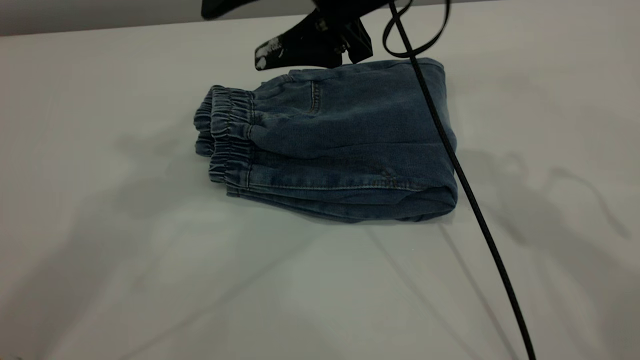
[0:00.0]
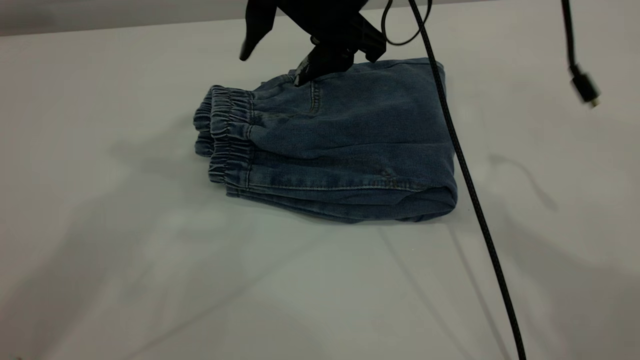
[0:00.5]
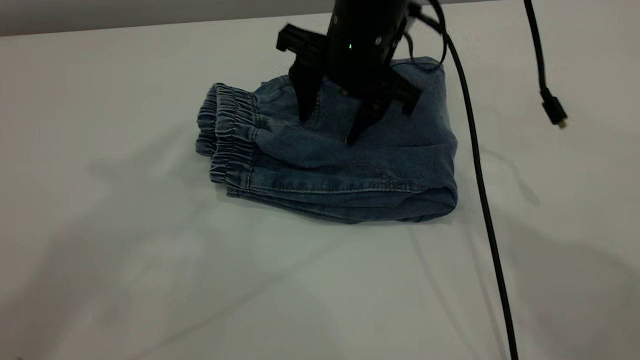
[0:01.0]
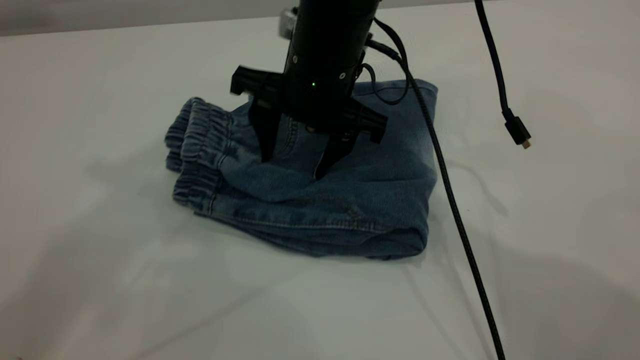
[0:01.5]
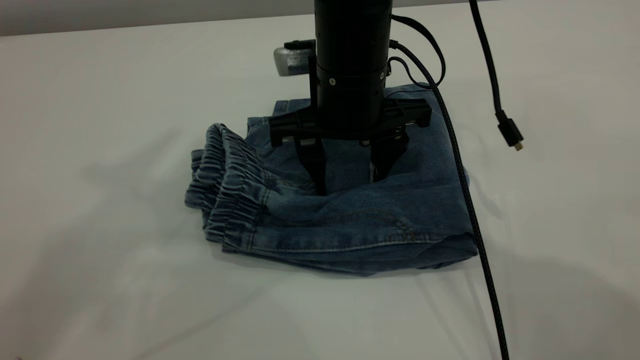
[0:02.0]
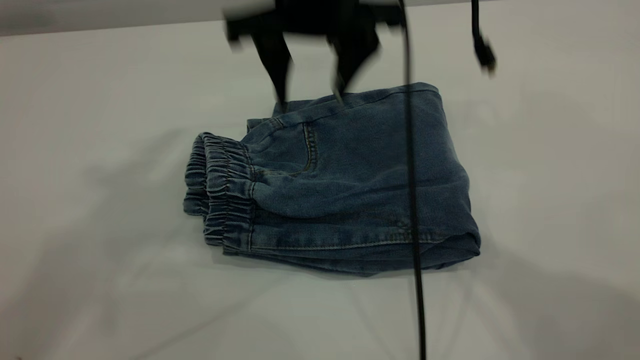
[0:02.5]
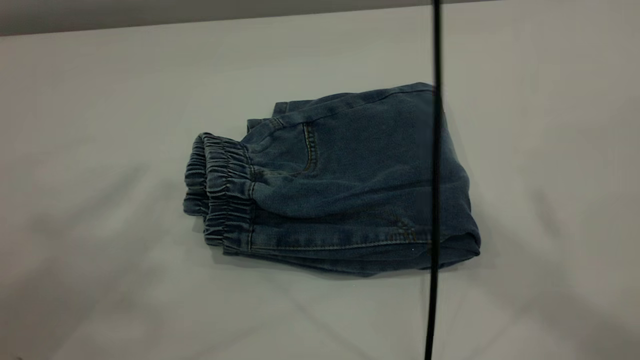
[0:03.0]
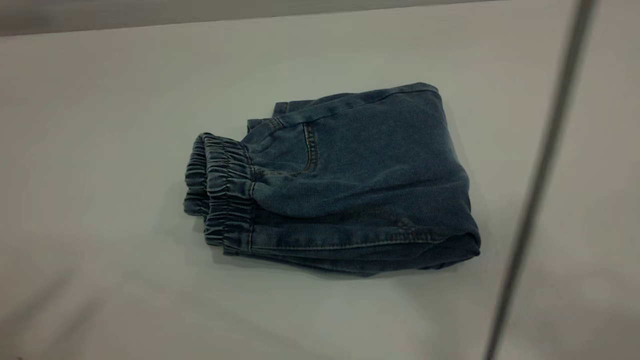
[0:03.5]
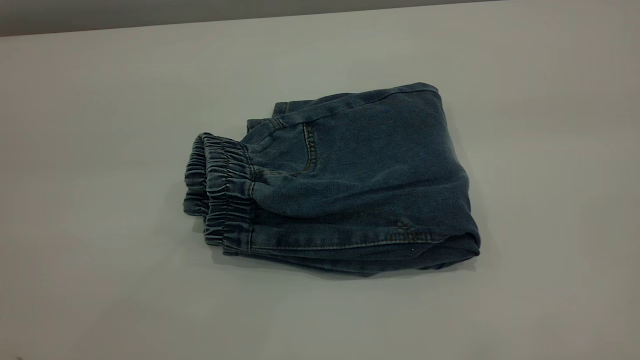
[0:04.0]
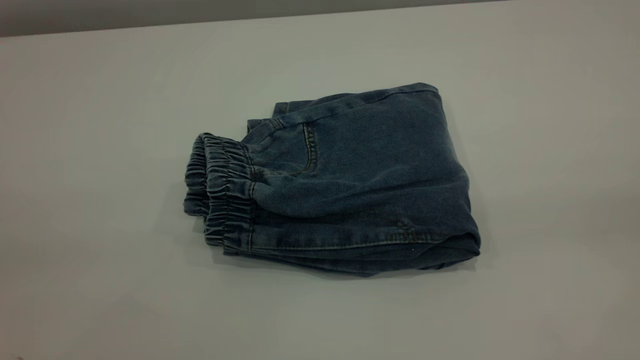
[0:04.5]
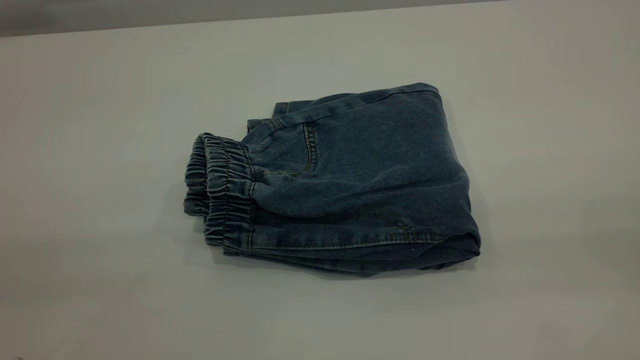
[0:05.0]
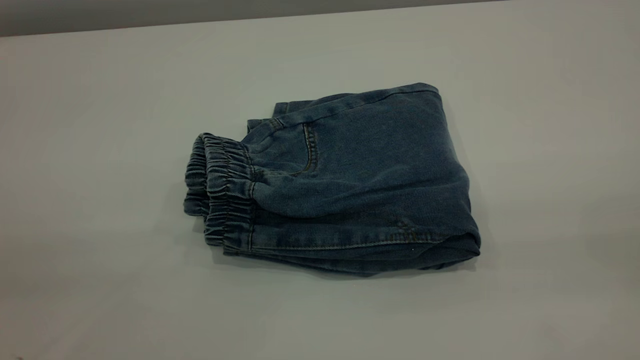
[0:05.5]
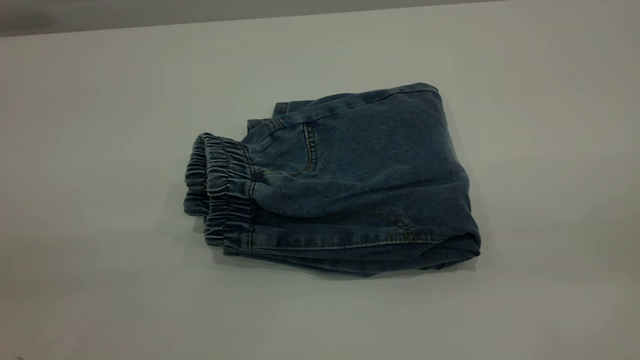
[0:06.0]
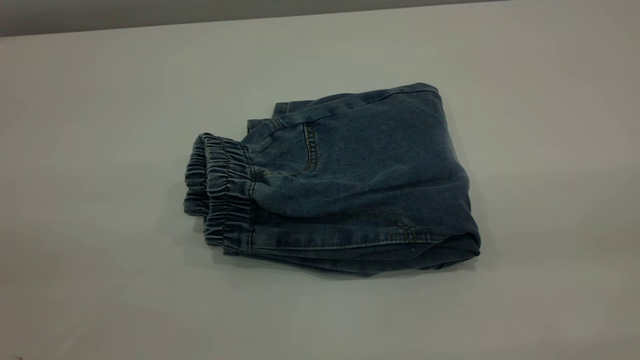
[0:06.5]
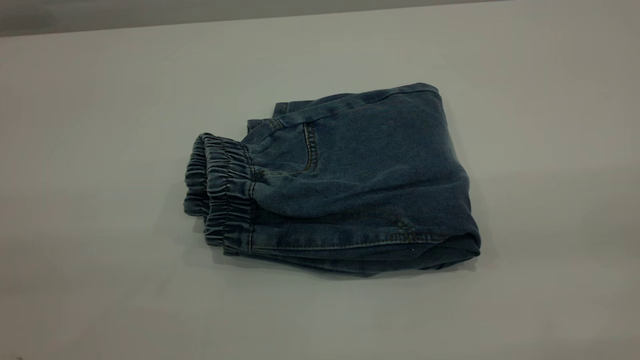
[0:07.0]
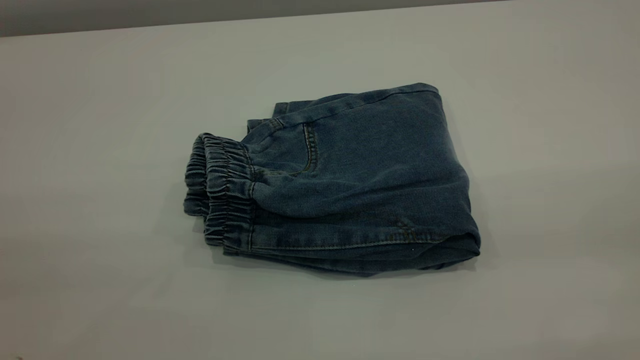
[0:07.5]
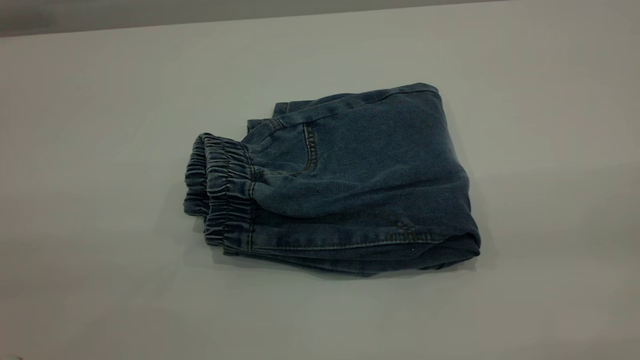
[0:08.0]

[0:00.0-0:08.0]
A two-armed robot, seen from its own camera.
0:00.0 to 0:02.0: The left gripper shifts by some 5 cm; the right gripper moves downward, about 10 cm.
0:02.0 to 0:04.0: The right gripper travels upward, backward and to the right by about 50 cm, while the left gripper shifts approximately 20 cm backward.
